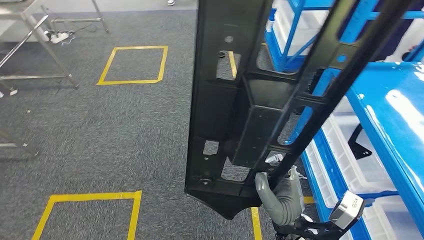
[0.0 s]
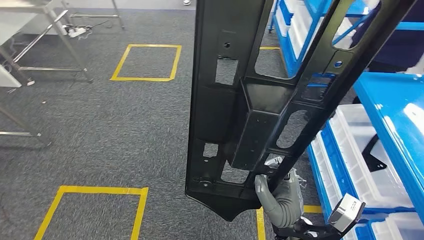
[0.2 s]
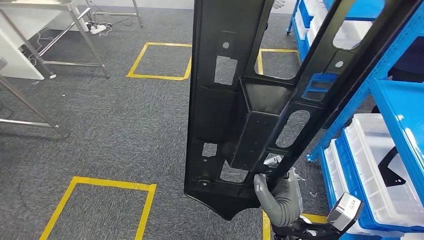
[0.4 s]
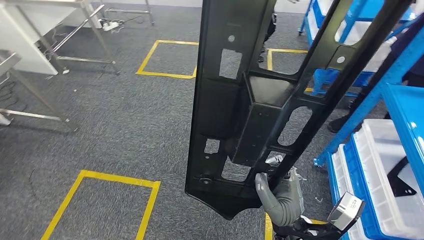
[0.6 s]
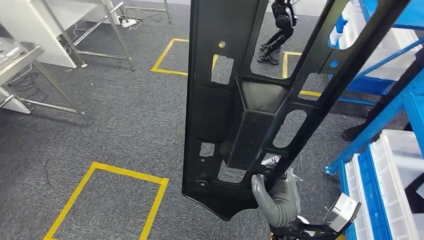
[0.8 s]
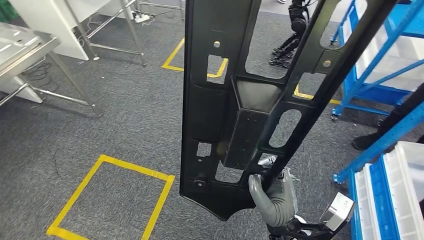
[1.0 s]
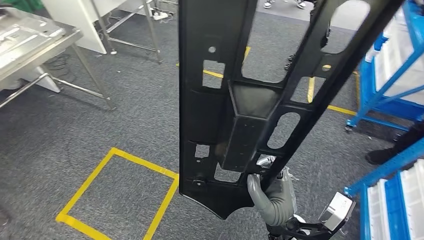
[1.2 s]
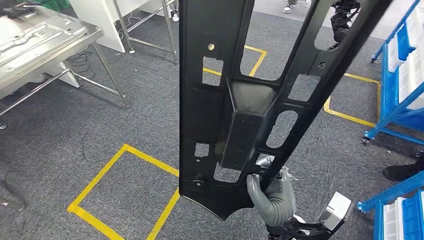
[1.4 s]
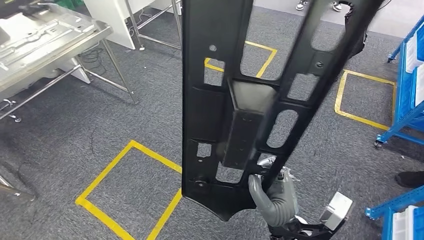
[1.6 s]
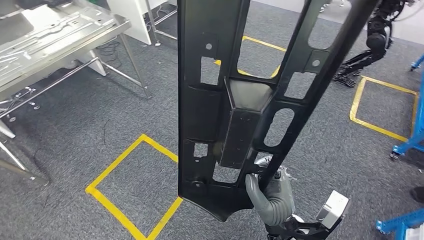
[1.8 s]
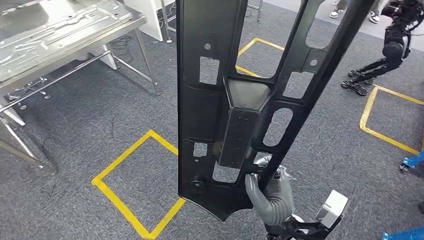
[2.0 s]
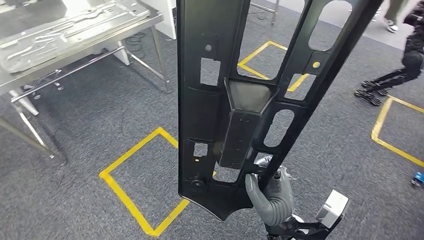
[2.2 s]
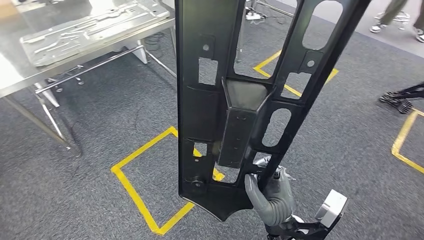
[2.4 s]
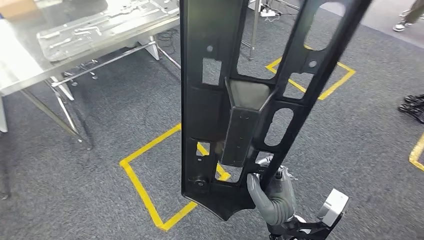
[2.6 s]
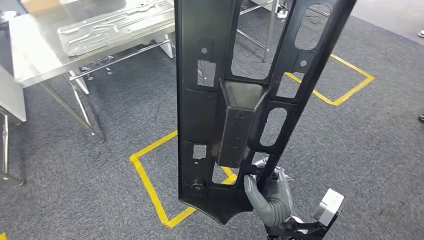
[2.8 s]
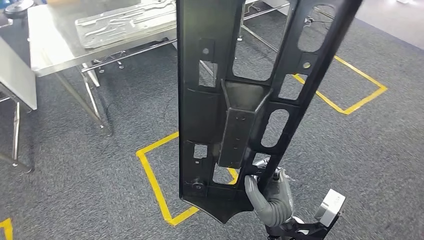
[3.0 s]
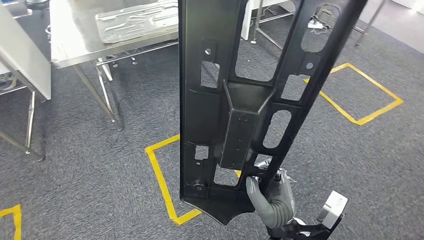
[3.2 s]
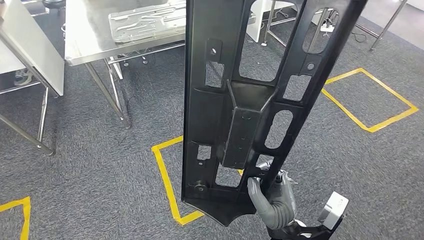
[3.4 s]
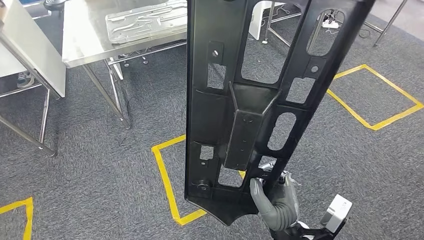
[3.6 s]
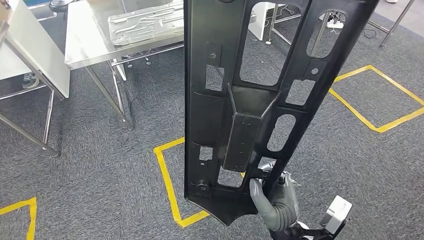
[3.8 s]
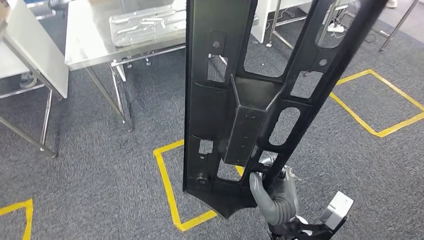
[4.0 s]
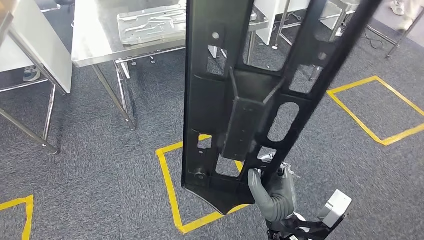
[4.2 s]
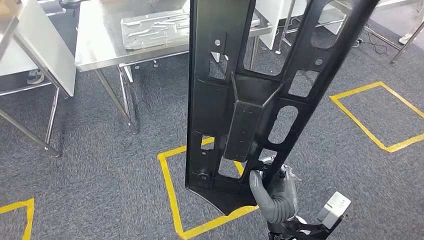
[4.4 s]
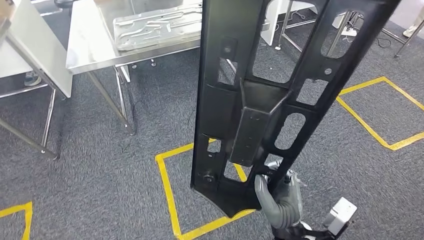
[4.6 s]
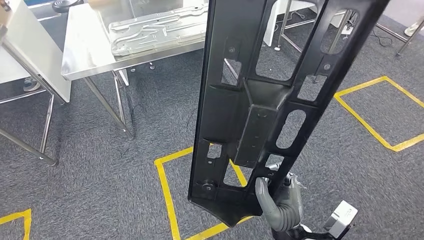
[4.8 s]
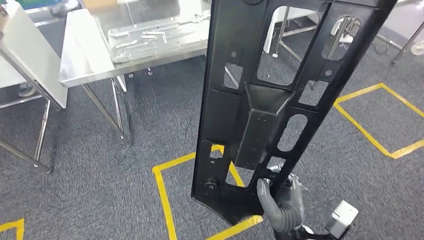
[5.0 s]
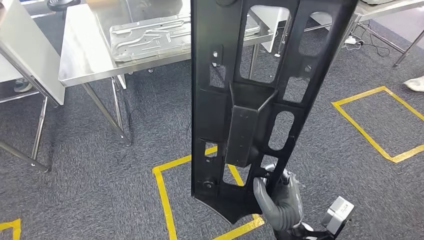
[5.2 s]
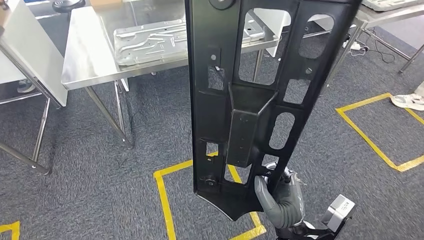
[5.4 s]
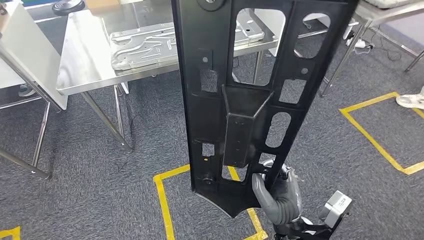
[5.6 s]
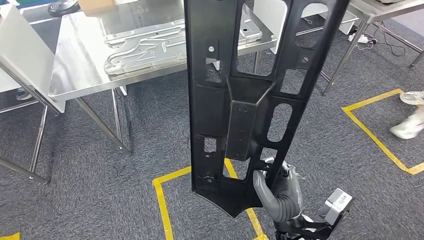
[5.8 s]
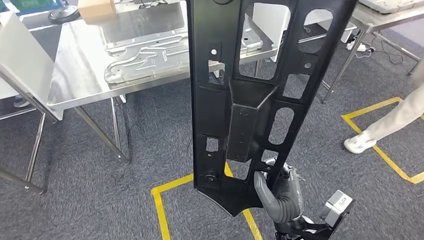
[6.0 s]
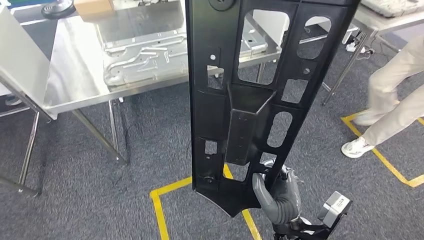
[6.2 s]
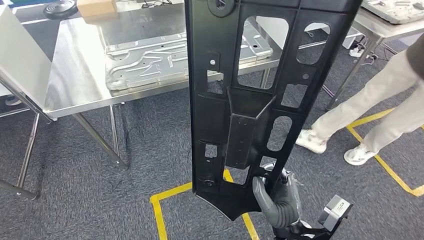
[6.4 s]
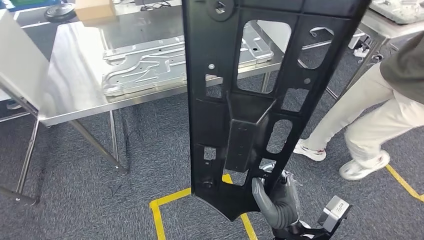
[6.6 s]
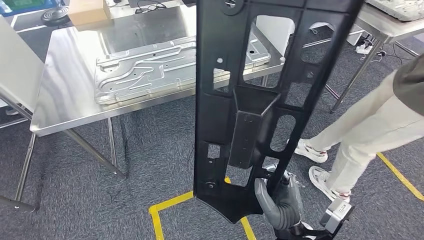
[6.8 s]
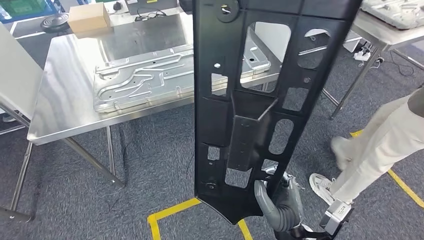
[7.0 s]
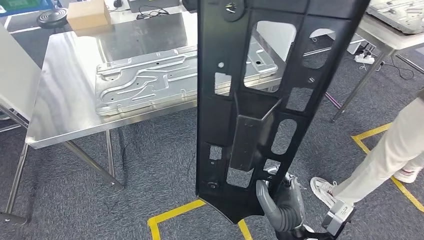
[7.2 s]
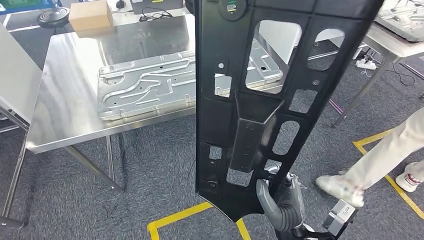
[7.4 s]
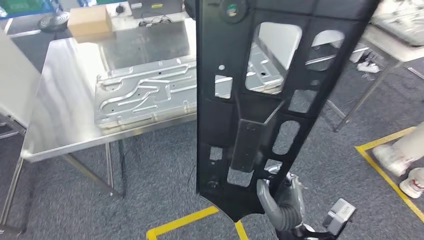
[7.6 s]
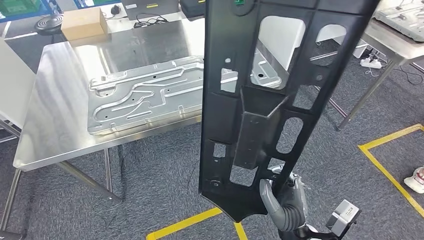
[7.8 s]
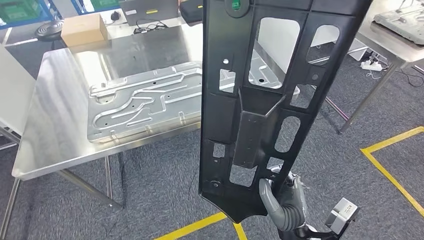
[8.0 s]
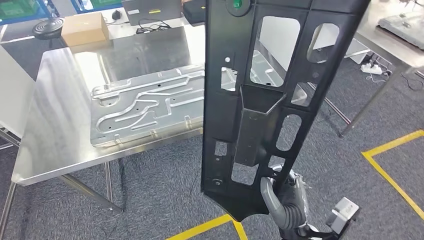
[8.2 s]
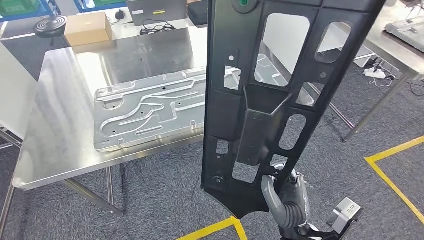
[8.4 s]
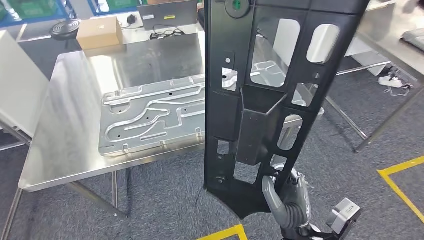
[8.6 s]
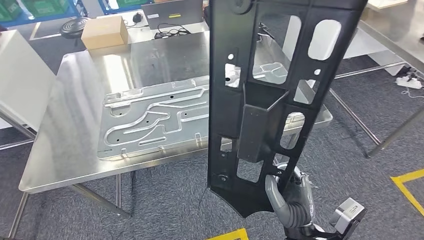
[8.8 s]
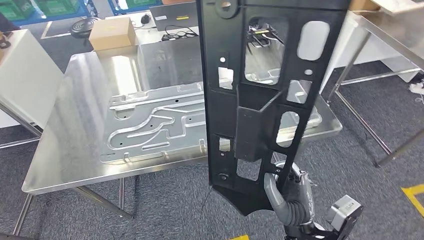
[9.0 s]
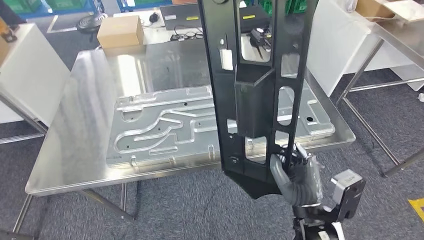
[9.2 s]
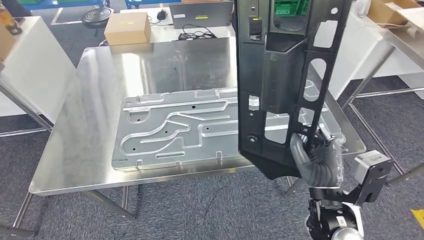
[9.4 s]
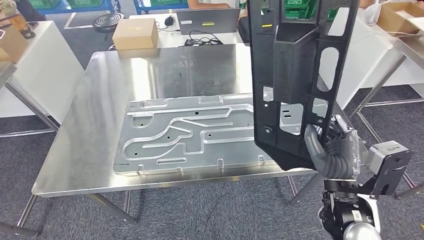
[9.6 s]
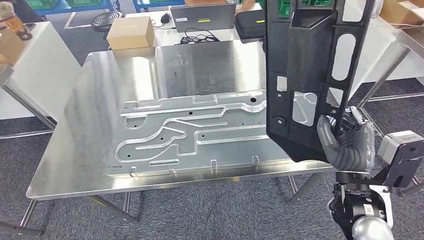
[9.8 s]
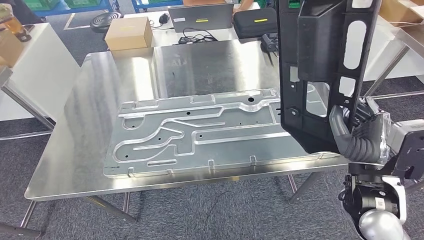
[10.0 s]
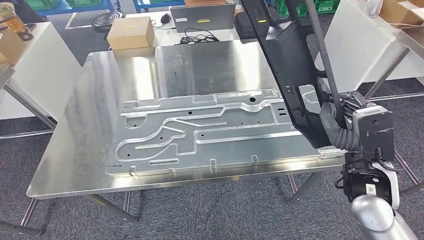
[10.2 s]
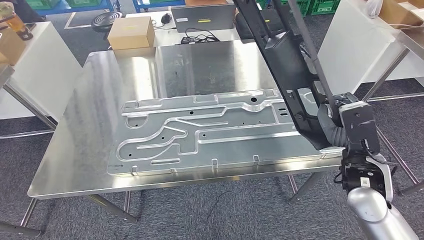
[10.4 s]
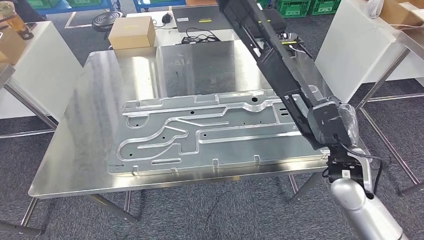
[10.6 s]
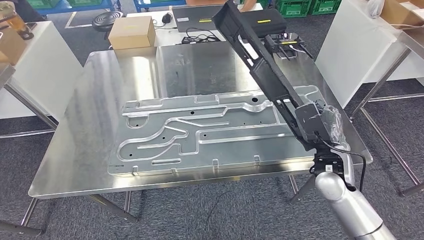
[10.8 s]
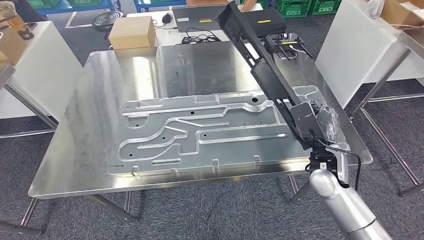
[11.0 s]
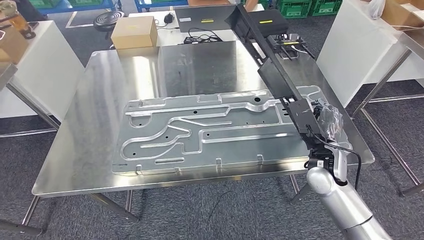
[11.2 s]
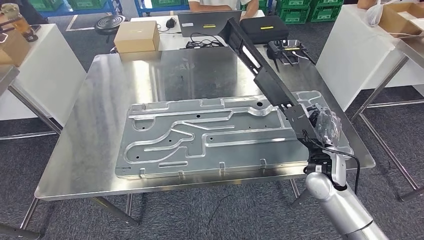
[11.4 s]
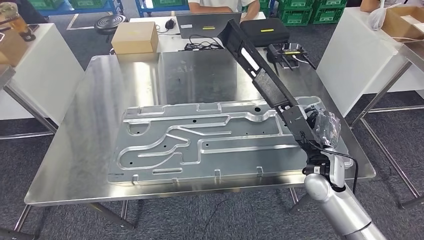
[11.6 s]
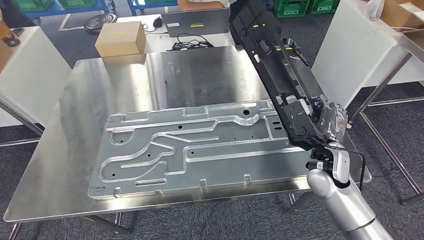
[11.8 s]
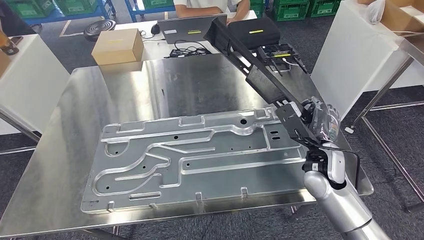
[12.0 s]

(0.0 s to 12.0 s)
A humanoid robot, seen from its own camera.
Step, 0.0 s - 8.8 s: Move the large material to the workbench.

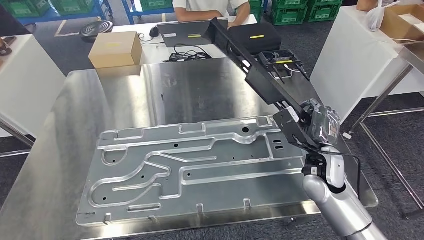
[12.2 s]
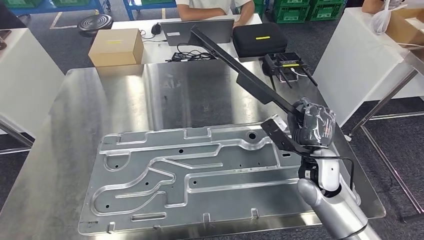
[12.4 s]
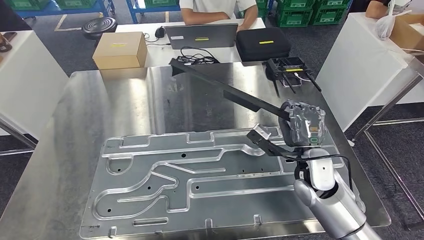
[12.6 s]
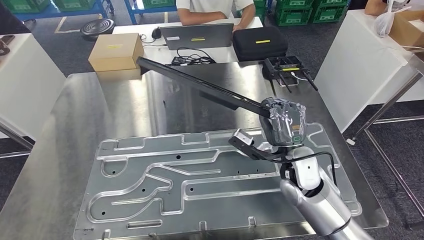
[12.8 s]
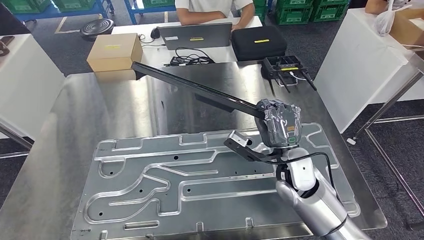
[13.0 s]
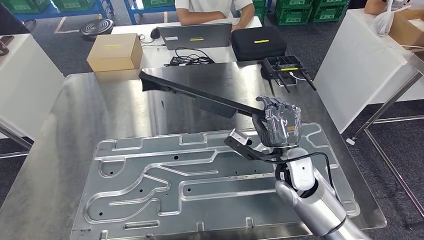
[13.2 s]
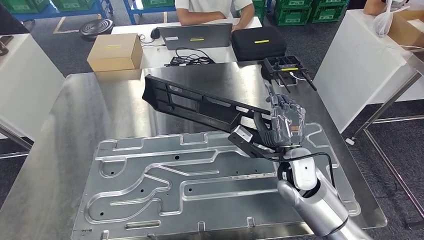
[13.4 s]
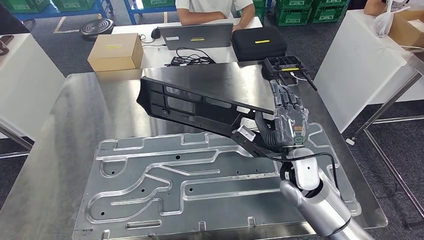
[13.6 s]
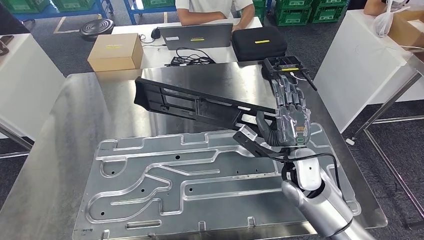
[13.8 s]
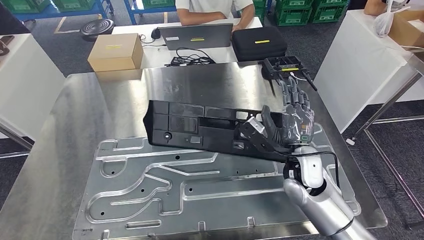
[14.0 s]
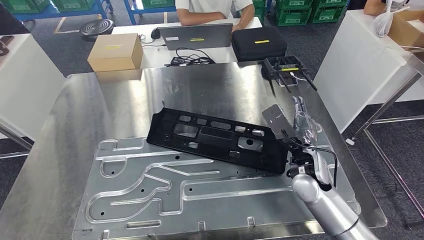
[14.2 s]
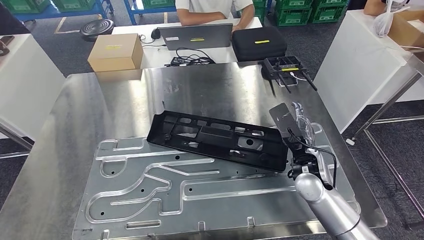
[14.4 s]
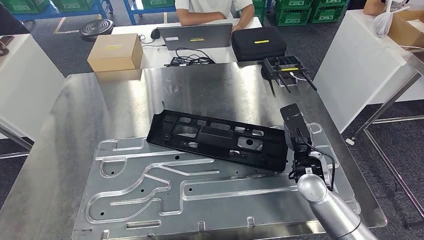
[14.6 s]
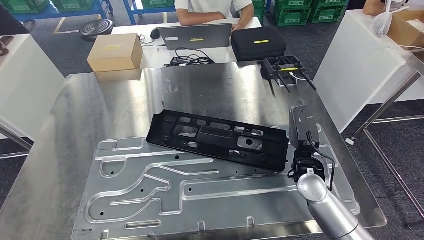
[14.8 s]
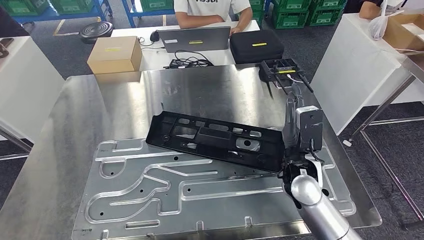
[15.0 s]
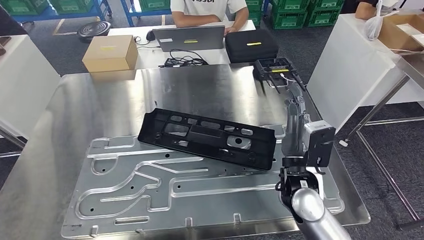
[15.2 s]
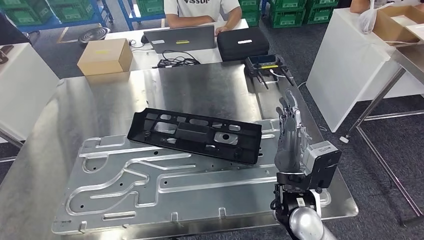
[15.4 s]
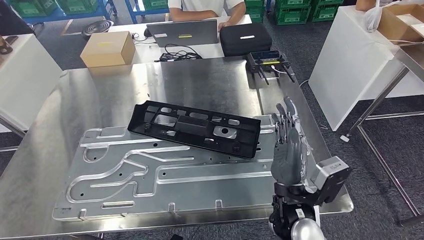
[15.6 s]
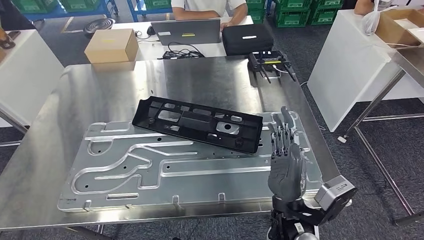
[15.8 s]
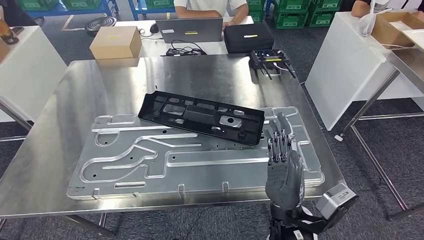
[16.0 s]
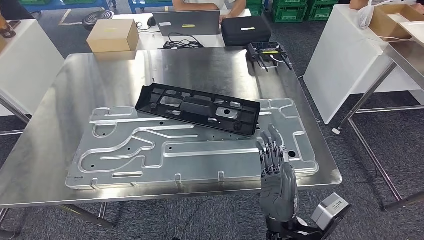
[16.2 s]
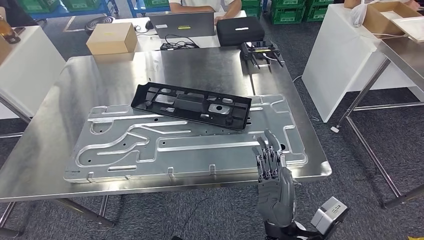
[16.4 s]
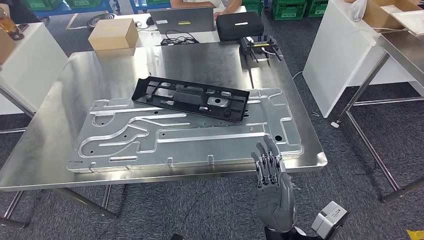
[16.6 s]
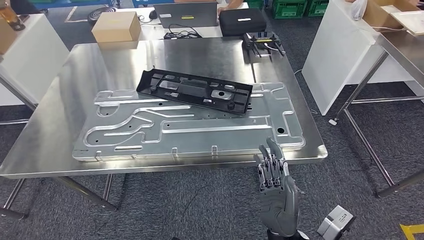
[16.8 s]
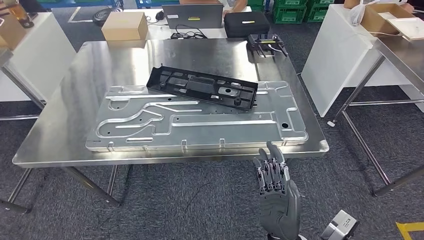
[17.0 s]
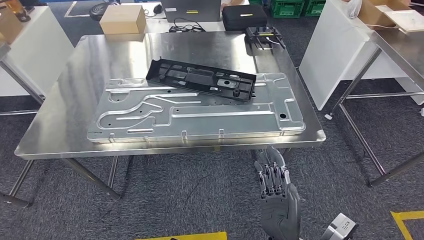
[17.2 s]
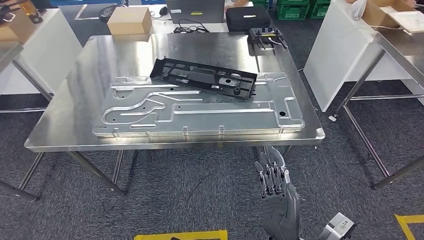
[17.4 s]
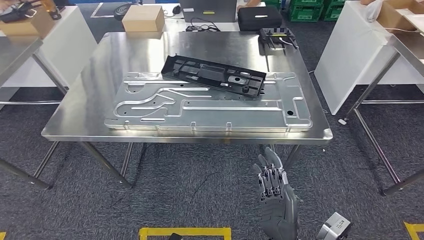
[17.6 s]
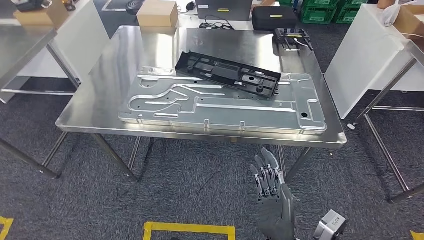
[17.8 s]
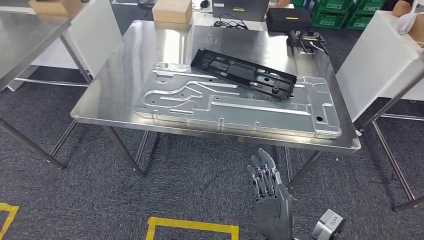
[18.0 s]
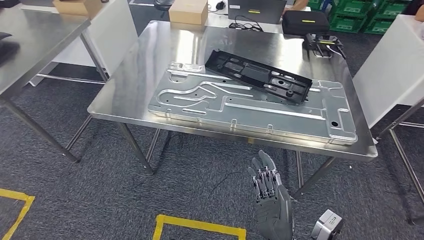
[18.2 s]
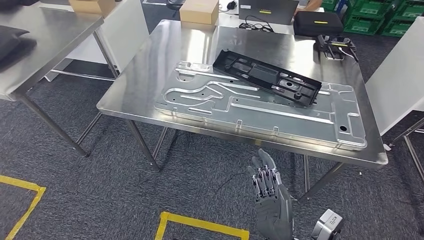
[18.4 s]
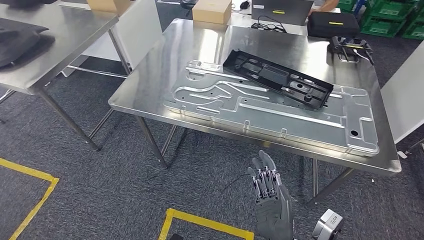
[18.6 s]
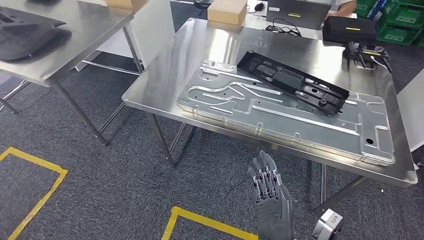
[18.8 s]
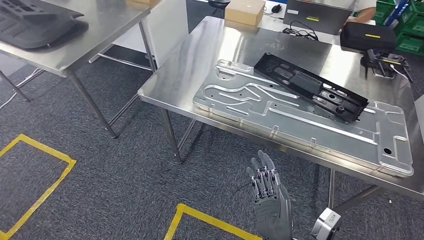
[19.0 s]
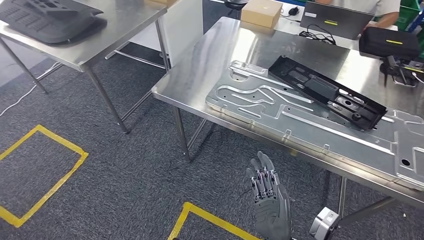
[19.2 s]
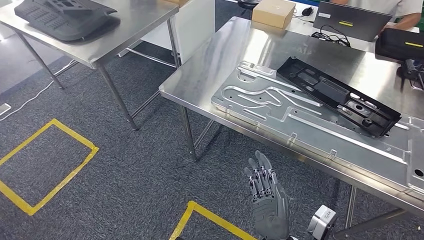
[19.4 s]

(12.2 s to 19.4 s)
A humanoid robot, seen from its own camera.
Step, 12.2 s - 18.2 s: Insert the large material into the corresponding slot on the workbench.
